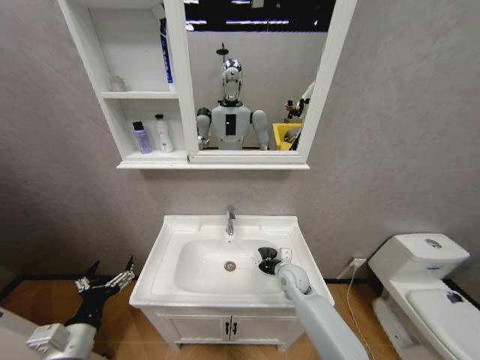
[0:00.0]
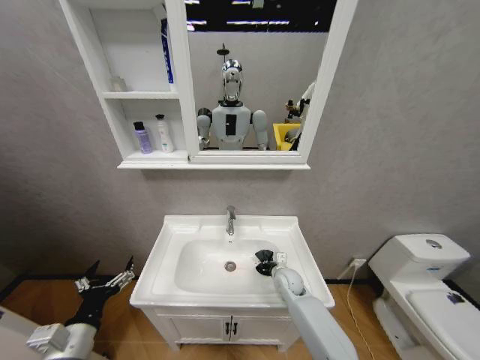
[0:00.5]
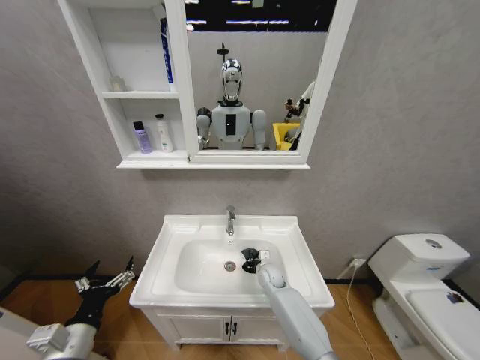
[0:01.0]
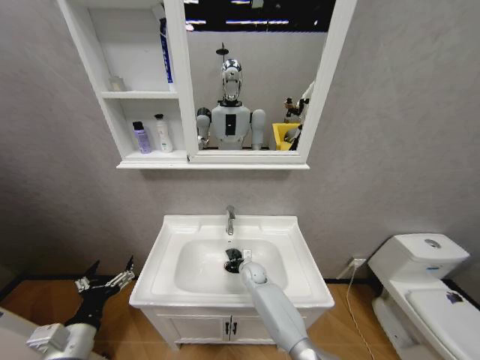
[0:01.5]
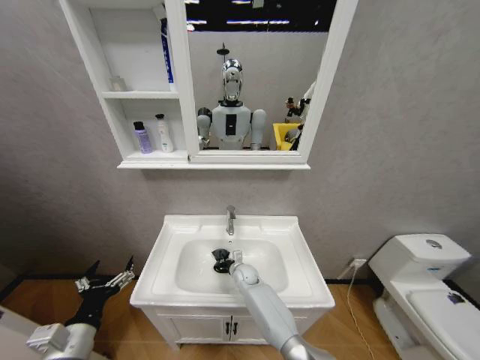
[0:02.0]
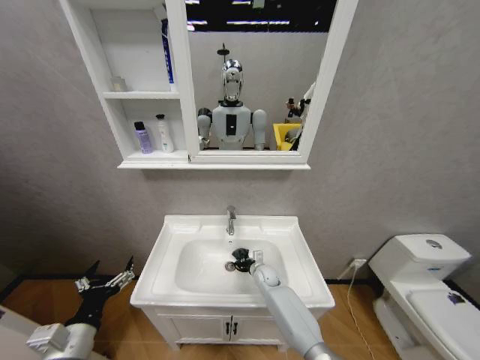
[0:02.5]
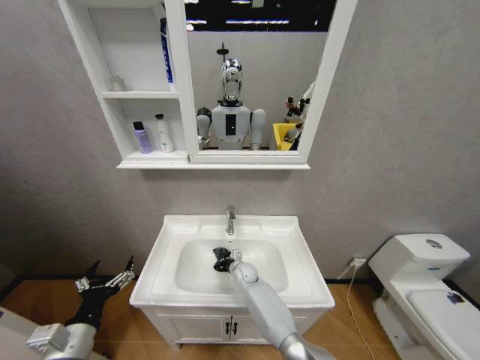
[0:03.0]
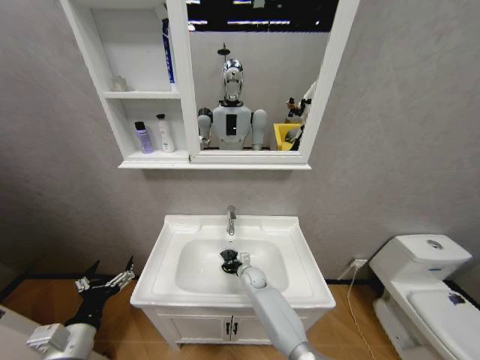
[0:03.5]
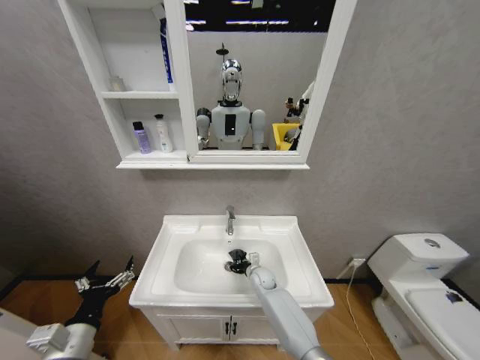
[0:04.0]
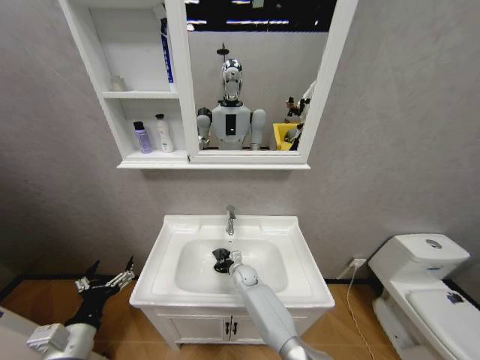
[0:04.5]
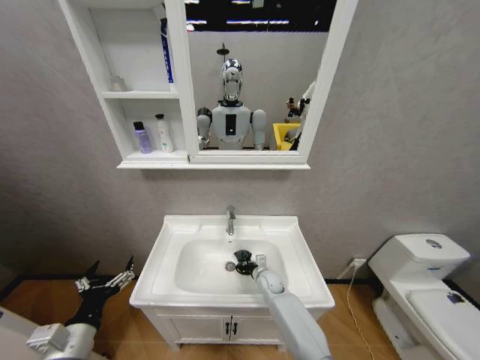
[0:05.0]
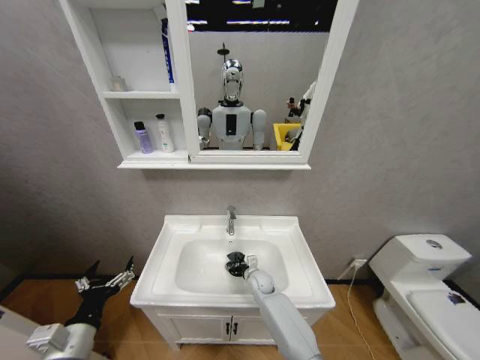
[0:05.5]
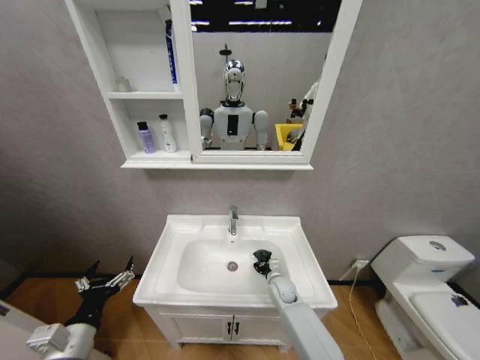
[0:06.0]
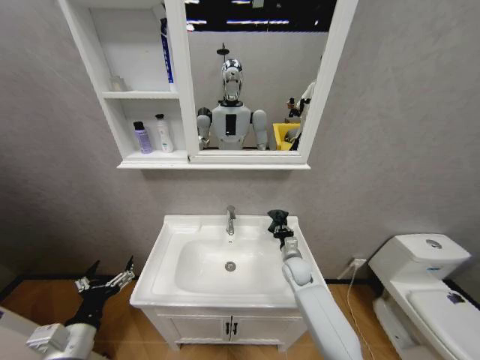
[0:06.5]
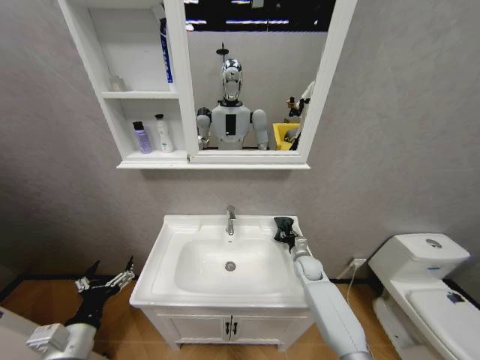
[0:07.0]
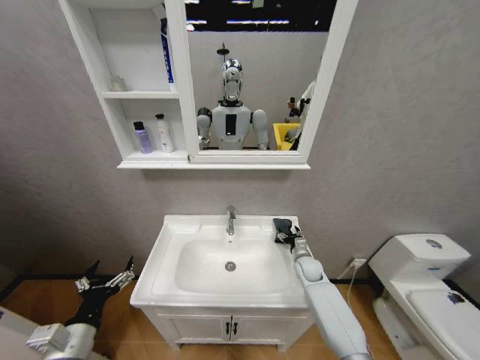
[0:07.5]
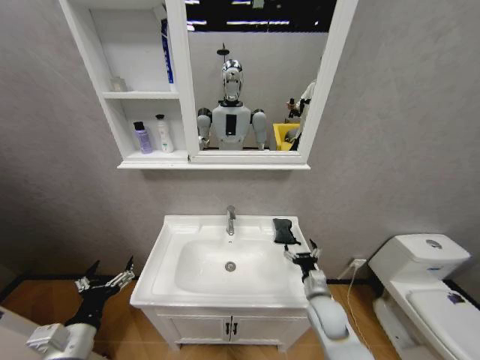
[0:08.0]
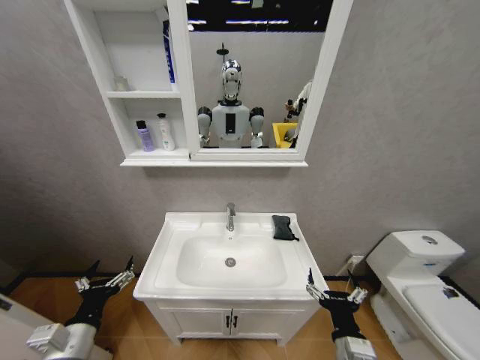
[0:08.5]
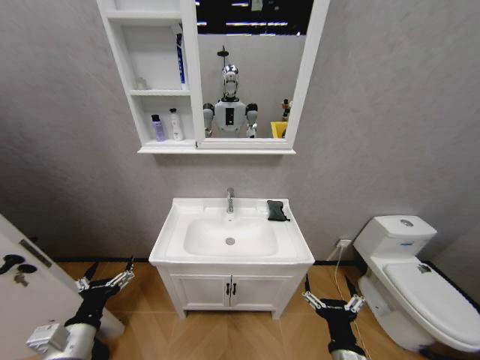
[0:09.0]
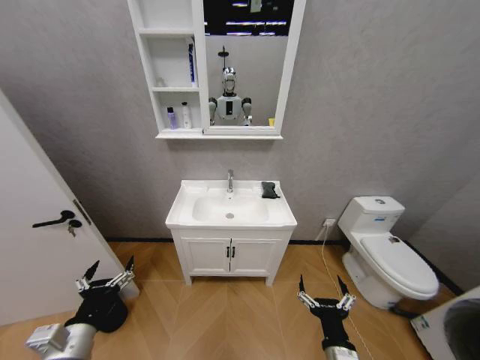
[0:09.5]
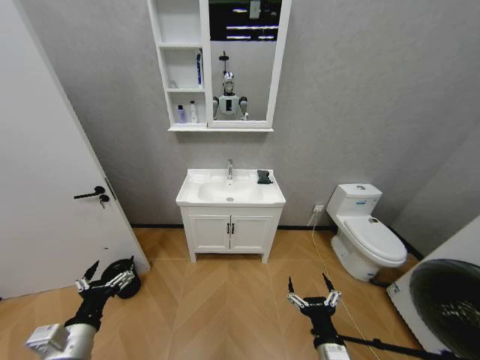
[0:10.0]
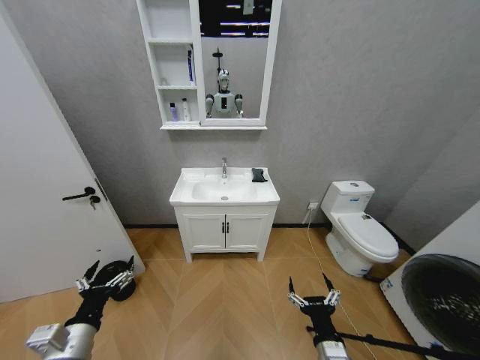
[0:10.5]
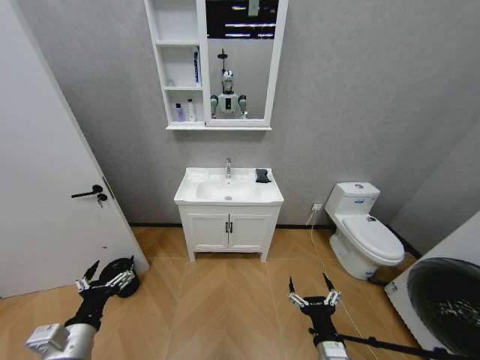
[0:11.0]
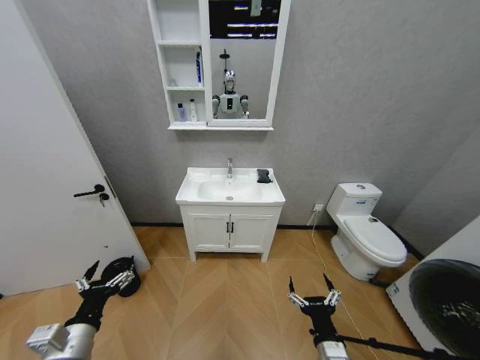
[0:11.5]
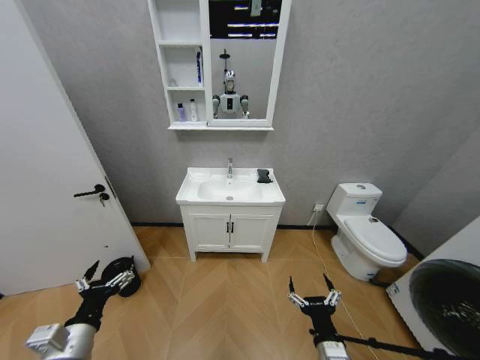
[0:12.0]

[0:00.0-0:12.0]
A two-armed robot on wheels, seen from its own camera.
Task of the whole recording: Move facial cleanser and shampoo from washbasin to cabinet, then wipe washbasin with towel.
0:00.0 to 0:02.0: The right gripper moves to the left, downward and forward, about 20 cm.
0:02.0 to 0:04.0: The right gripper swings left and right, about 10 cm each way, with 2 reversals.
0:04.0 to 0:06.0: The right gripper is displaced to the right by approximately 5 cm.
0:06.0 to 0:08.0: The right gripper is displaced backward, to the right and upward by approximately 15 cm, and opens.
0:08.0 to 0:10.0: The right gripper goes some 20 cm backward.
0:10.0 to 0:12.0: Both grippers stay put.

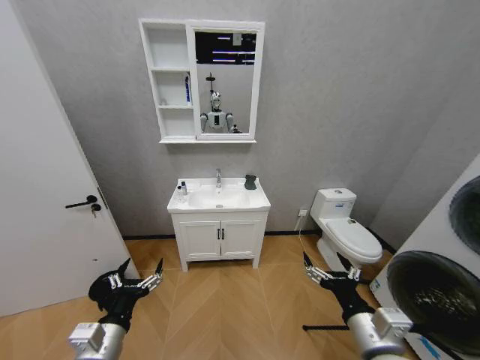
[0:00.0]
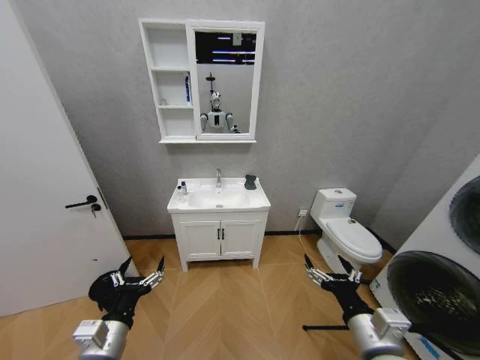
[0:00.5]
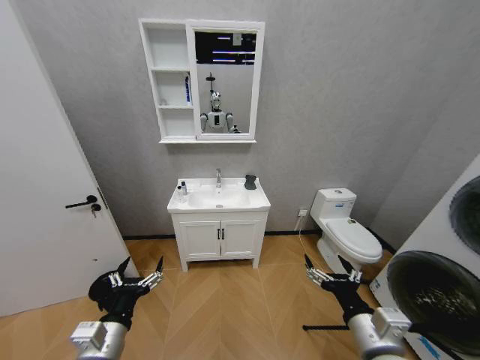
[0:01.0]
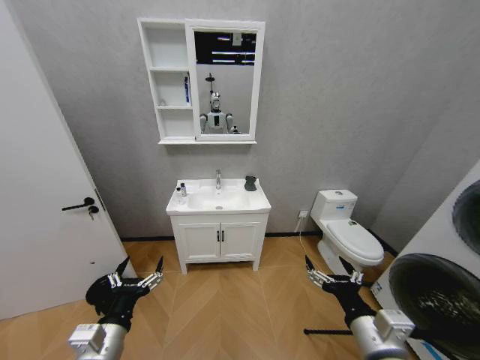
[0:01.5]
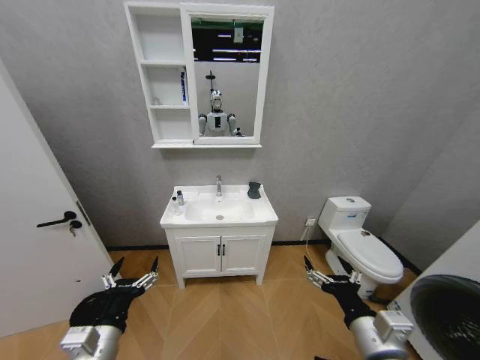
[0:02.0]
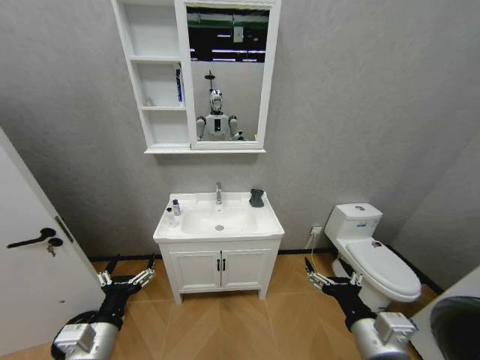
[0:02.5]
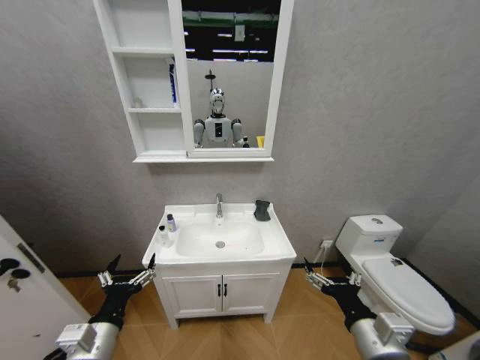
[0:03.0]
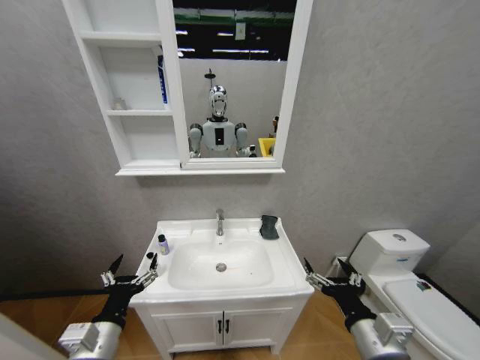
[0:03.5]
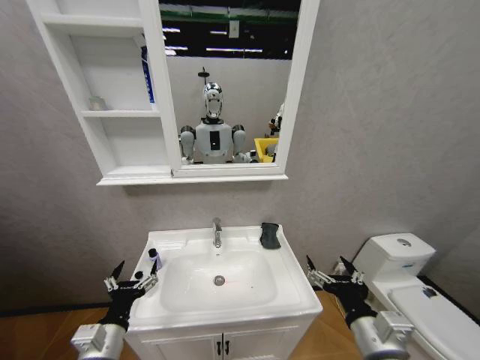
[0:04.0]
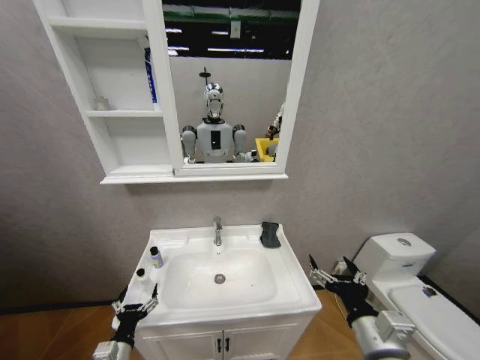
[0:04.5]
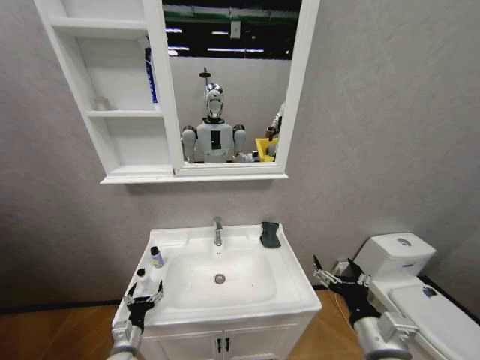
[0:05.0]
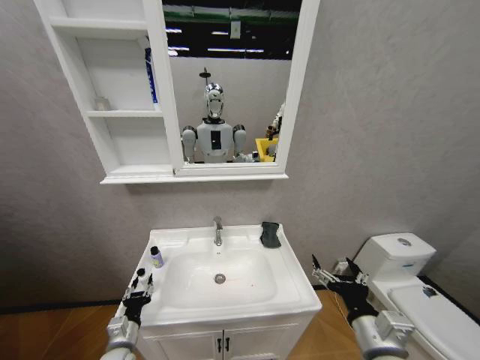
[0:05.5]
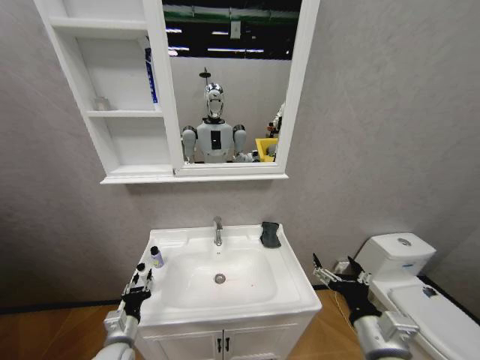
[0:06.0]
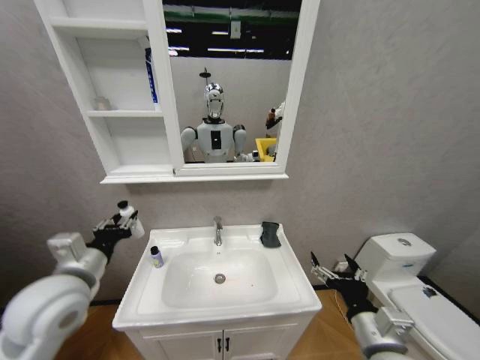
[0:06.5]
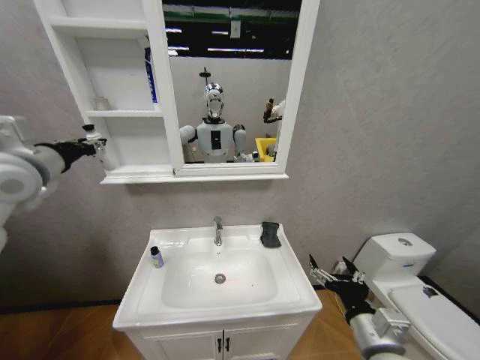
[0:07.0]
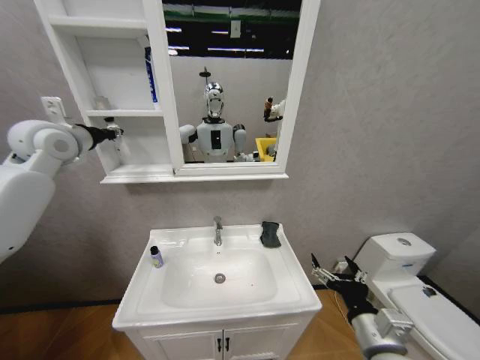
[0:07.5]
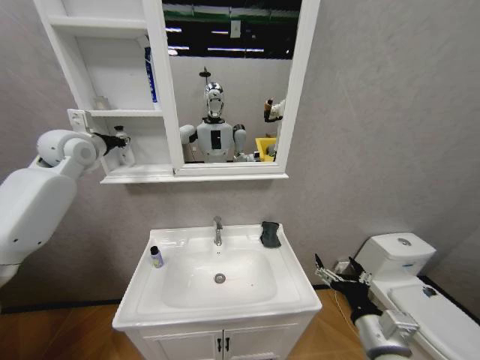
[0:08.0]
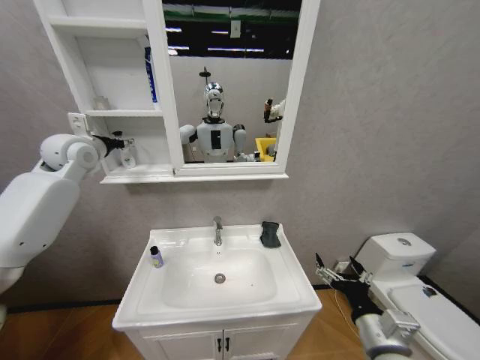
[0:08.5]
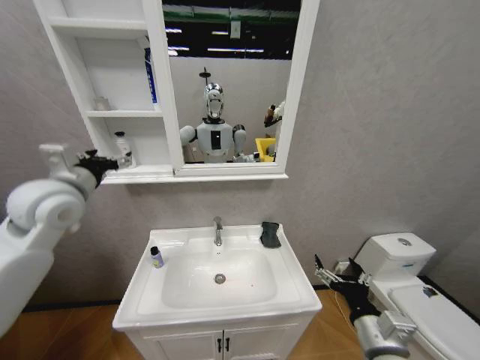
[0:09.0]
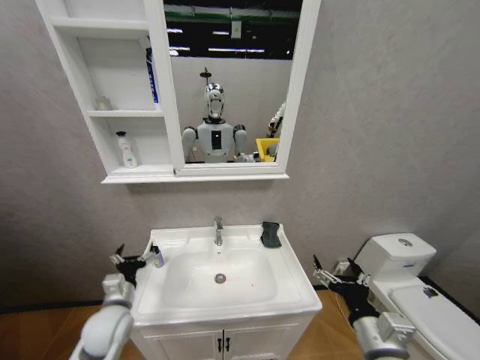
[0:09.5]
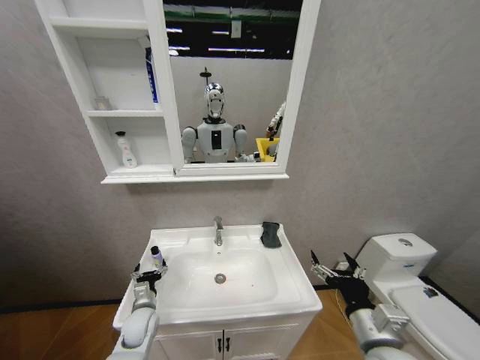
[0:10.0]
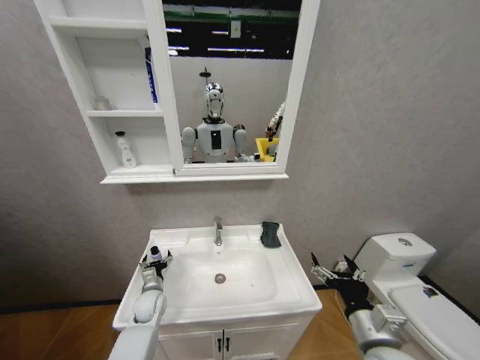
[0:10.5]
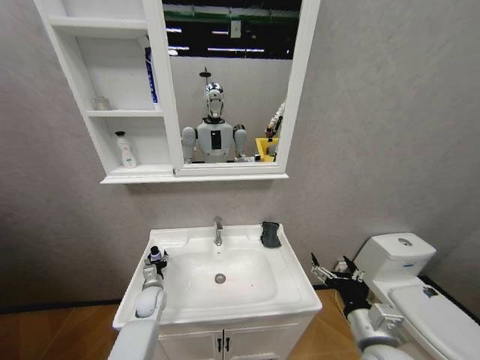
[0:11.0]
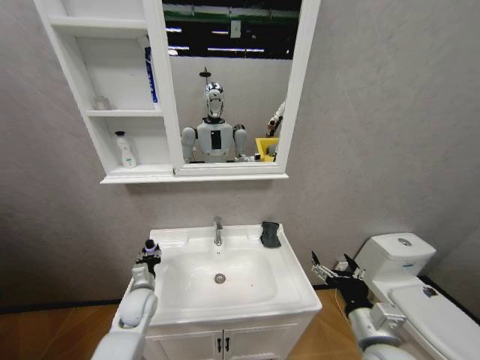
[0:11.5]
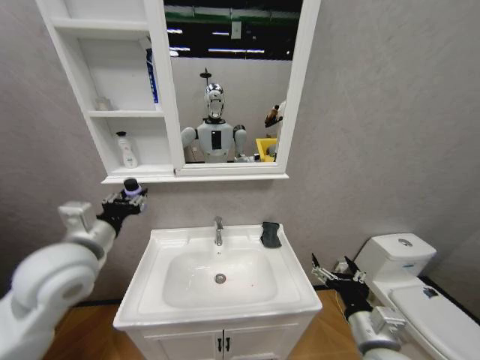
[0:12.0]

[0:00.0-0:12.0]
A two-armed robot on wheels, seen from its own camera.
Task of the whole recording: Move facial cleanser and shampoo from washbasin to cabinet, then wipe washbasin with towel.
0:04.0 to 0:06.0: The left gripper shifts roughly 10 cm downward and forward, and closes.
0:06.0 to 0:08.0: The left gripper is displaced upward and forward by about 50 cm.
0:08.0 to 0:10.0: The left gripper shifts roughly 50 cm downward, and opens its fingers.
0:10.0 to 0:12.0: The left gripper shifts some 35 cm upward, and closes its fingers.

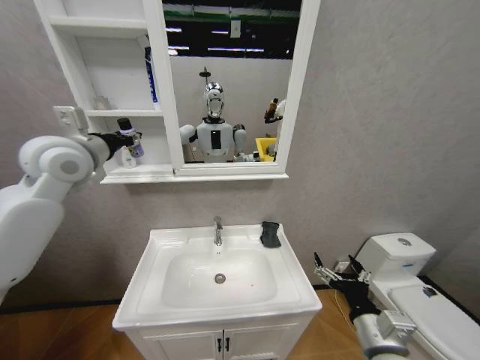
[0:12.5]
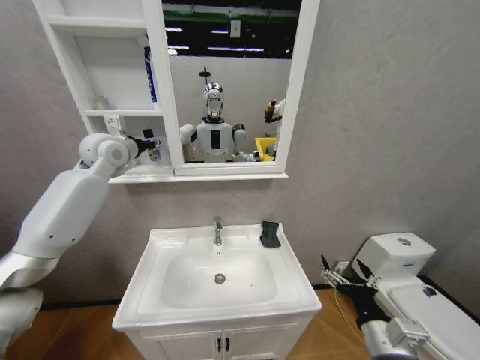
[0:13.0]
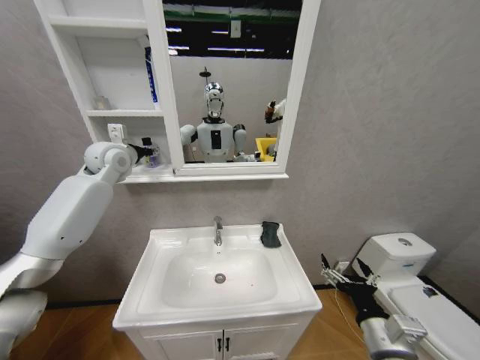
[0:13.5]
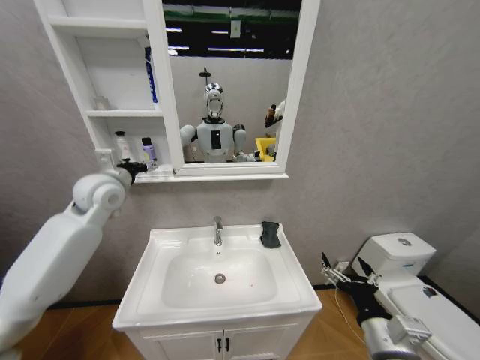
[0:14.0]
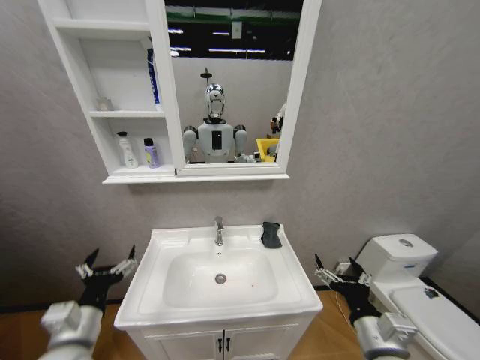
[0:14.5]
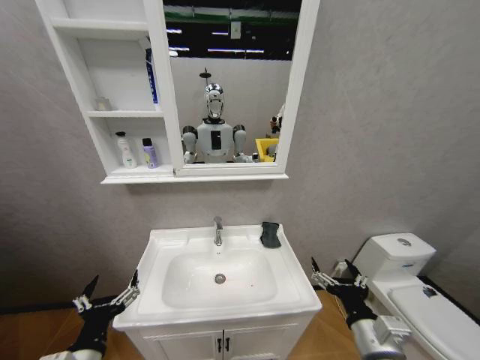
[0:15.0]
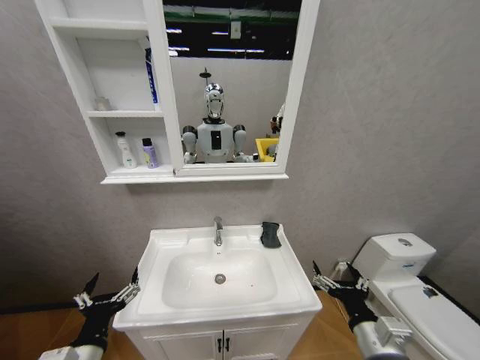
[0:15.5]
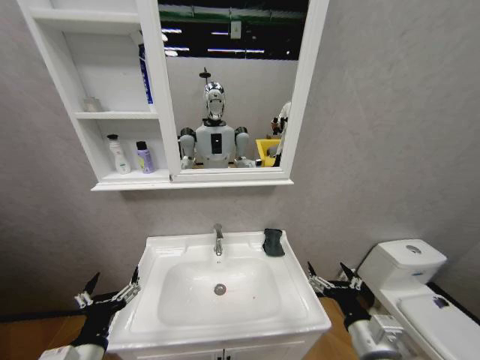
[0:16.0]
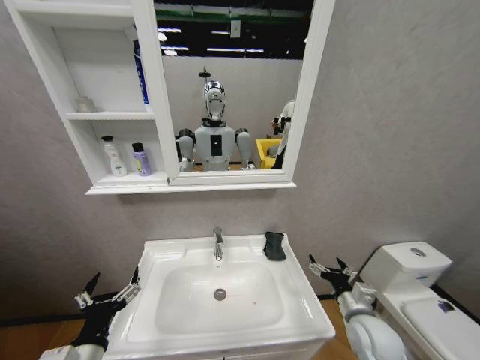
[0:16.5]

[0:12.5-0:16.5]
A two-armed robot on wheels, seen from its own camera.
Task of the whole recording: Move facial cleanser and shampoo from washbasin to cabinet, then wipe washbasin with towel.
0:12.5 to 0:14.5: The left gripper heads downward and backward, covering about 35 cm, and opens up.
0:14.5 to 0:16.5: The right gripper heads forward and downward, covering some 10 cm. Meanwhile the left gripper moves backward, approximately 10 cm.
